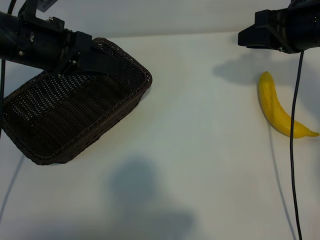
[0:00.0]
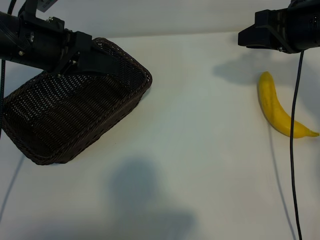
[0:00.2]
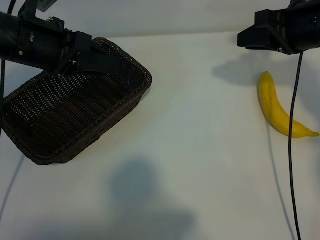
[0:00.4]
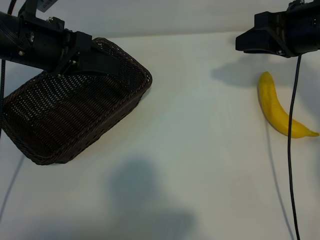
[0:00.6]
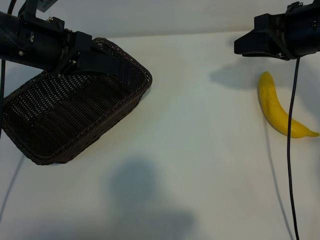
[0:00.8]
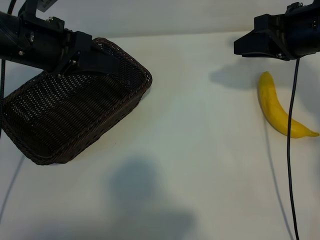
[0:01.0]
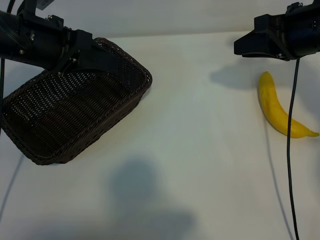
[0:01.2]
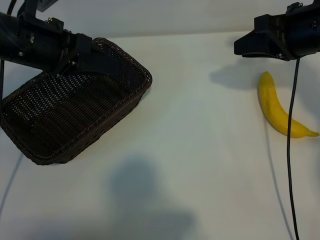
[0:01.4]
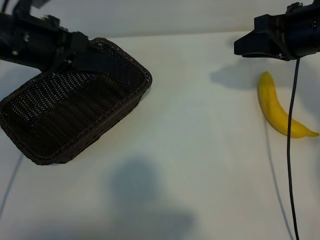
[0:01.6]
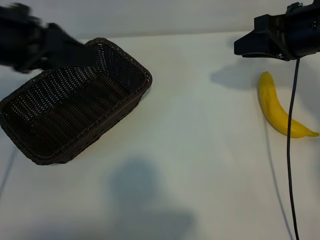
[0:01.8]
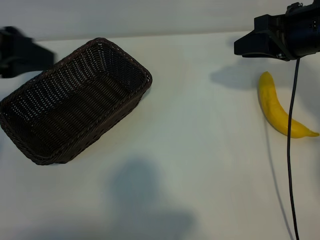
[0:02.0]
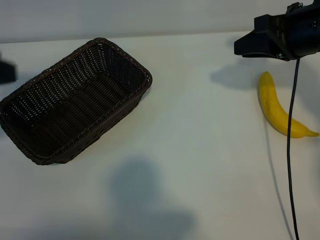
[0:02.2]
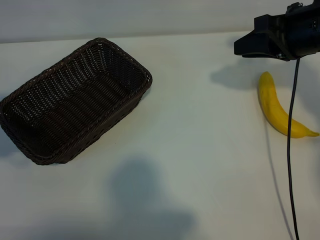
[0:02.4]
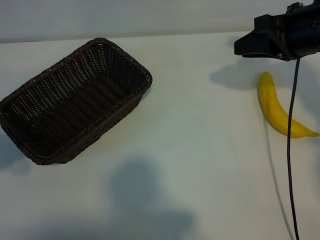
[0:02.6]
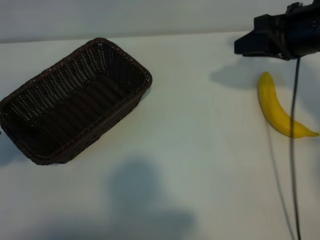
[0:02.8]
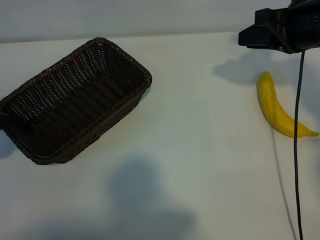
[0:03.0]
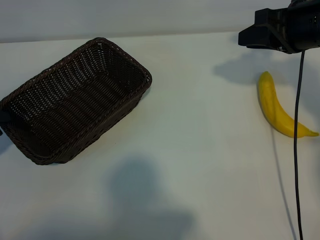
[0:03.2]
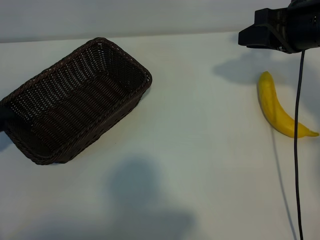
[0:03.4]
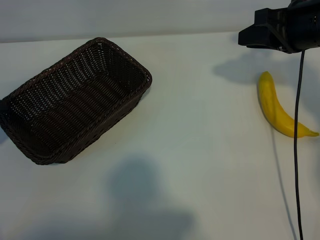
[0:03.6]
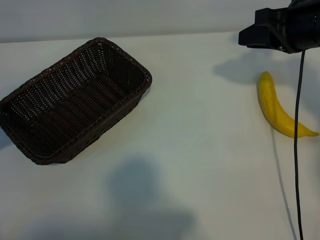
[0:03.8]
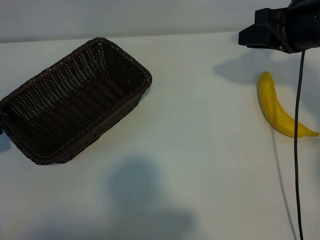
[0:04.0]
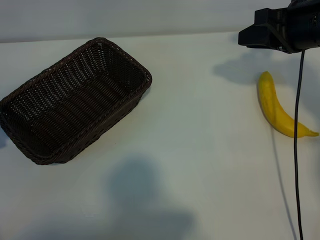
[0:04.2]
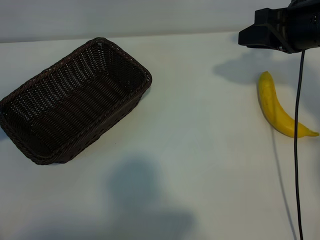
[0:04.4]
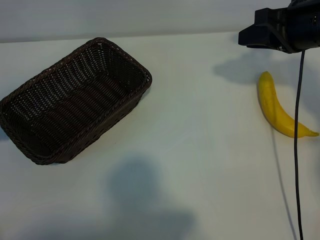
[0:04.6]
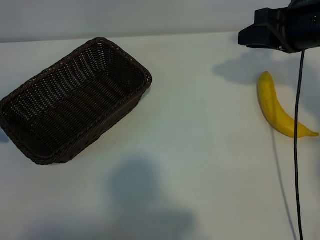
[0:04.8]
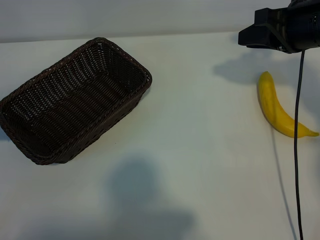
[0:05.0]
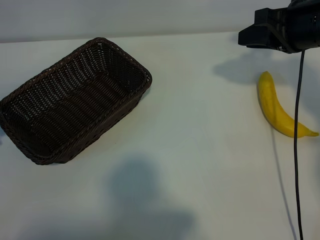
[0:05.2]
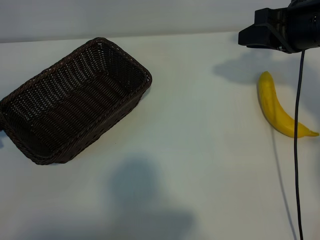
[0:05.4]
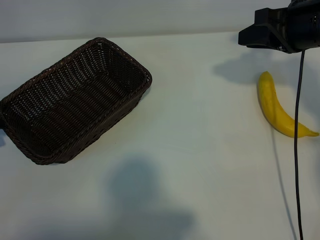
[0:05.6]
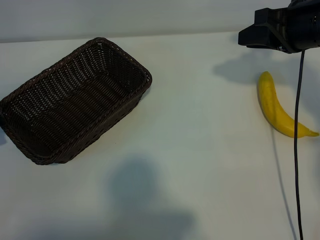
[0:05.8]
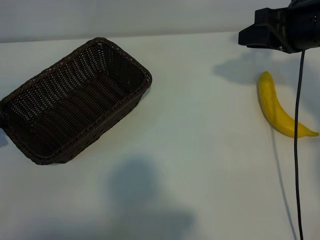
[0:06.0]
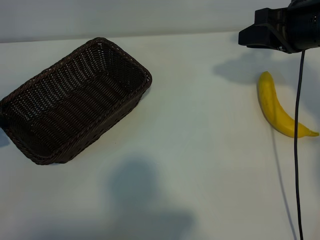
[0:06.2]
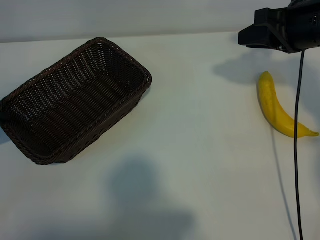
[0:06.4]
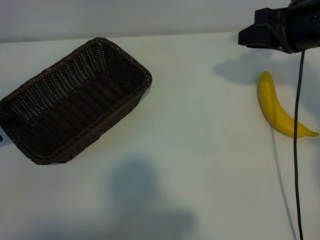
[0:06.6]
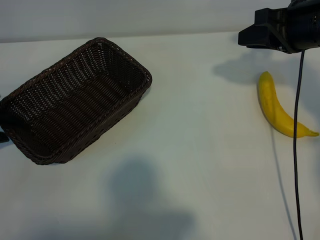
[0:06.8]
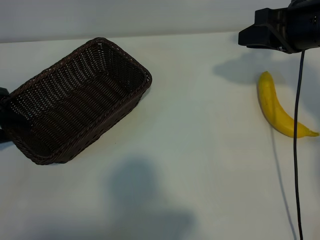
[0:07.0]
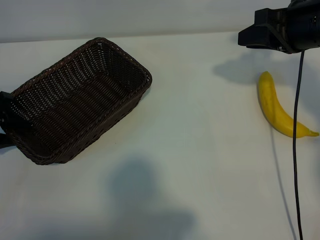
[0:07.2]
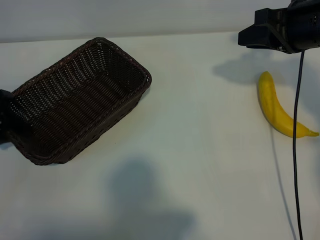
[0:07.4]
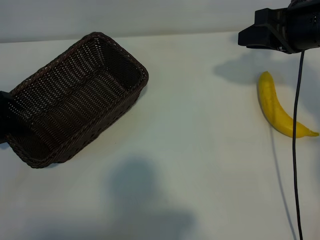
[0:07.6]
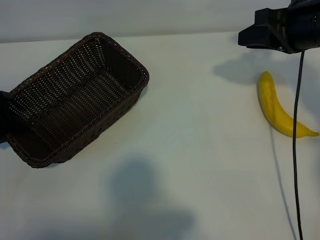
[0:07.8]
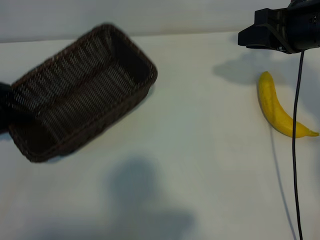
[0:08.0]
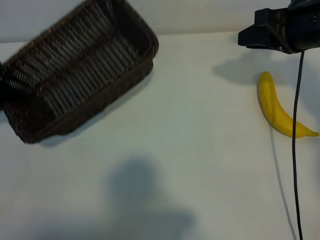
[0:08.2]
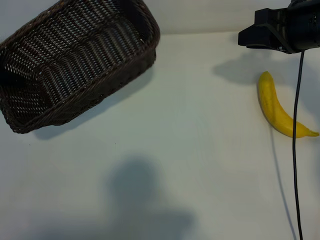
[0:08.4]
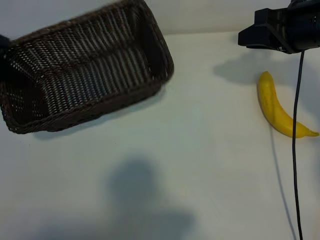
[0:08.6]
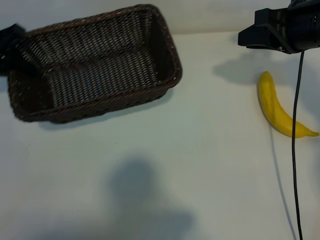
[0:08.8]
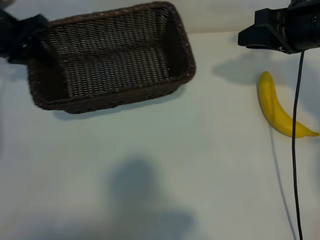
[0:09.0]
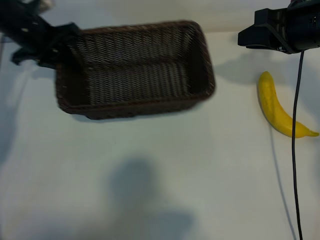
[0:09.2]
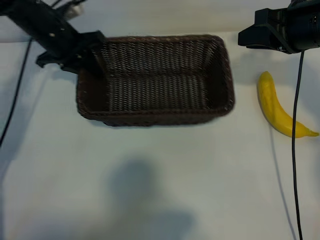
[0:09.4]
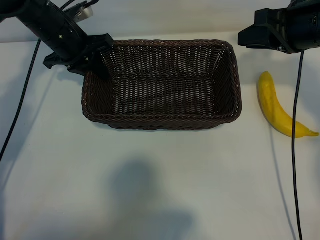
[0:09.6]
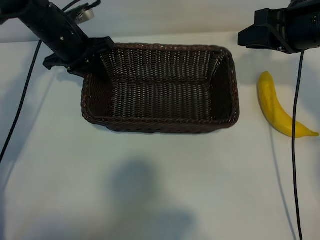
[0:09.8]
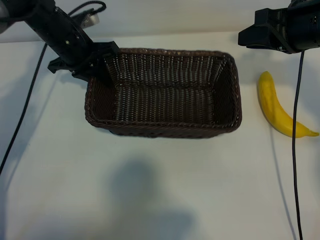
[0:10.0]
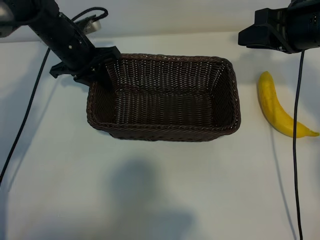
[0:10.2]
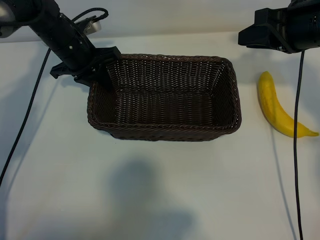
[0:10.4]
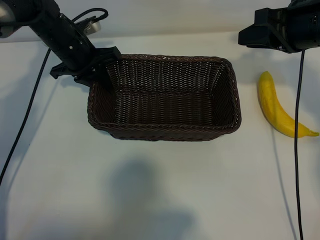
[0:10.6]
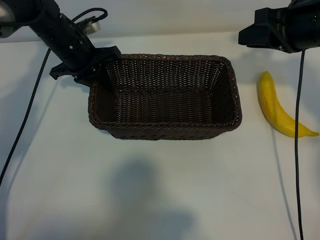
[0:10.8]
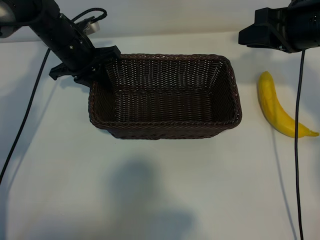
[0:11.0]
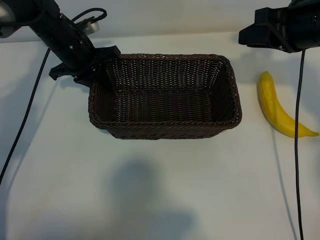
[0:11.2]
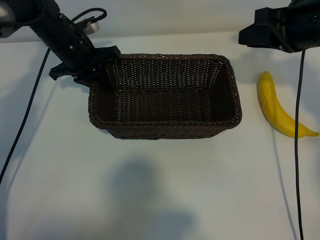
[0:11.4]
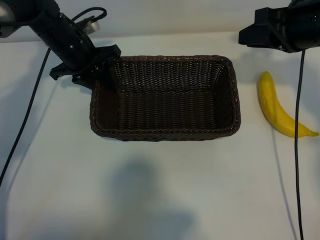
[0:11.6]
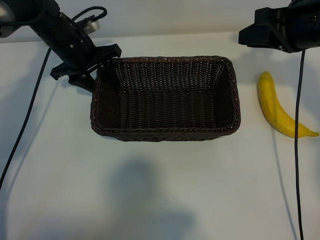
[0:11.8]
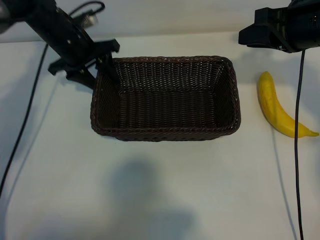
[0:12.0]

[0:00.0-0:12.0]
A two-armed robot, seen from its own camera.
Task of the whole recording: pick up the banana and put it into the basket.
Step, 0:00.0 to 0:07.8: Grasp the basket with the left gripper.
Step, 0:08.0 to 0:12.0: Place the basket in the center of the table with the left gripper.

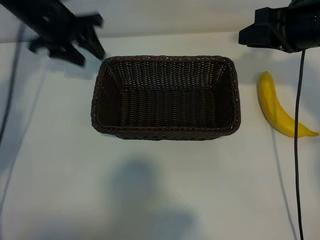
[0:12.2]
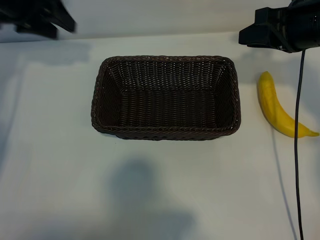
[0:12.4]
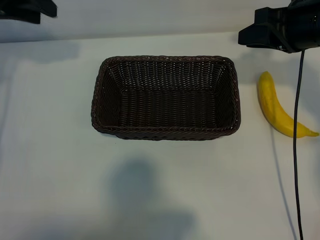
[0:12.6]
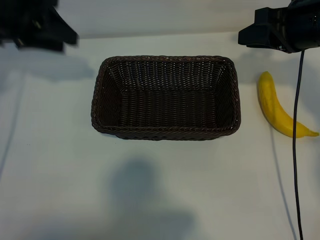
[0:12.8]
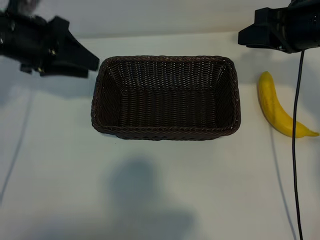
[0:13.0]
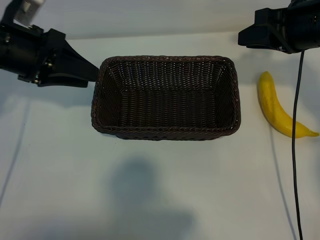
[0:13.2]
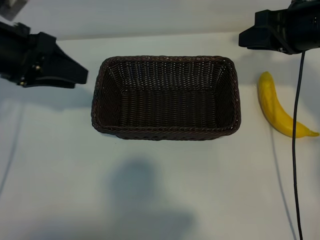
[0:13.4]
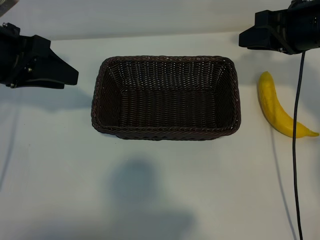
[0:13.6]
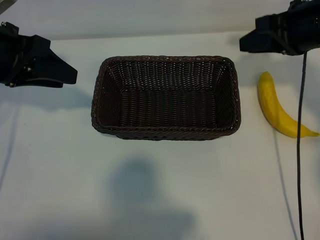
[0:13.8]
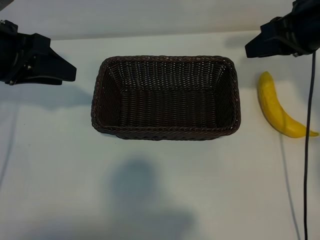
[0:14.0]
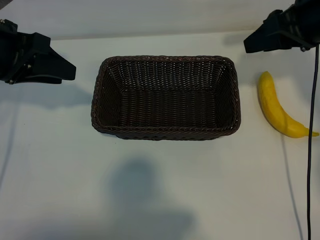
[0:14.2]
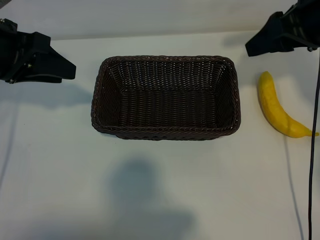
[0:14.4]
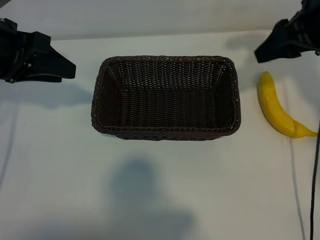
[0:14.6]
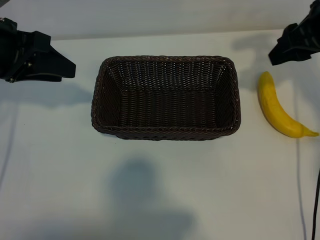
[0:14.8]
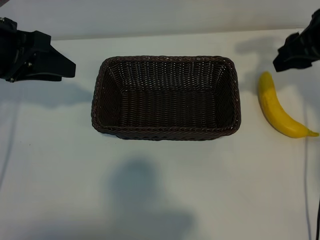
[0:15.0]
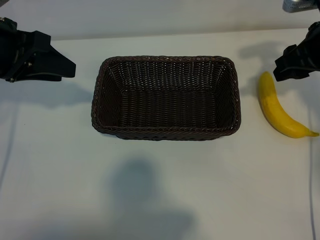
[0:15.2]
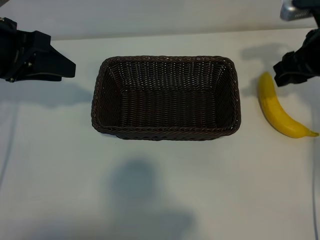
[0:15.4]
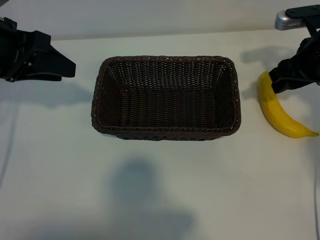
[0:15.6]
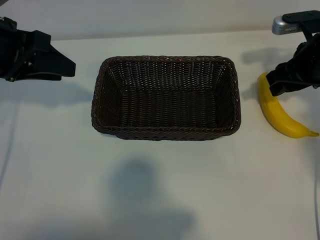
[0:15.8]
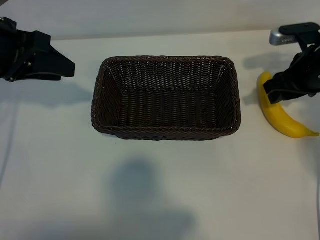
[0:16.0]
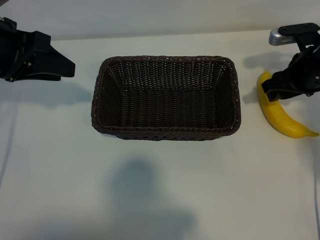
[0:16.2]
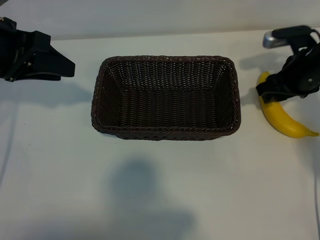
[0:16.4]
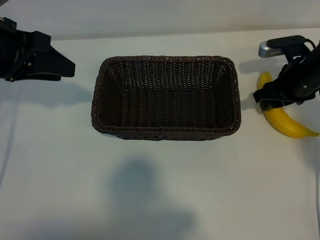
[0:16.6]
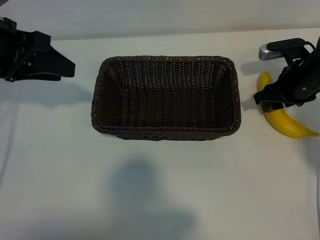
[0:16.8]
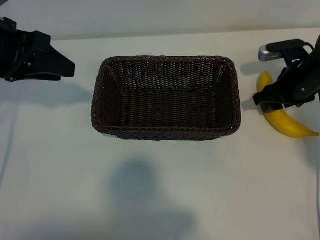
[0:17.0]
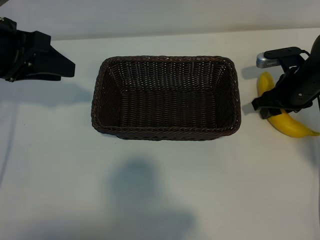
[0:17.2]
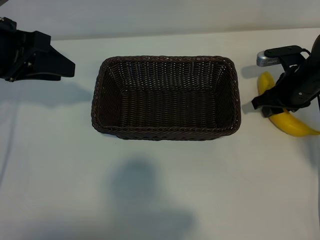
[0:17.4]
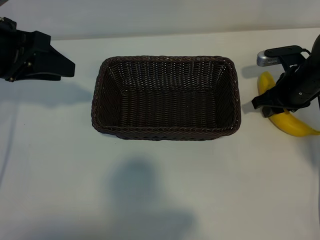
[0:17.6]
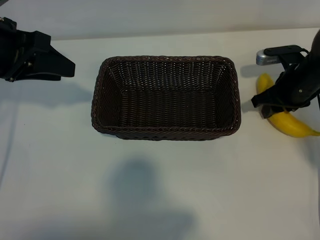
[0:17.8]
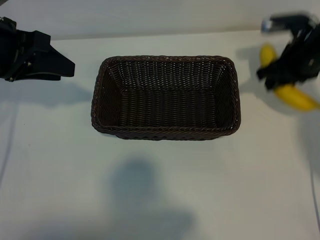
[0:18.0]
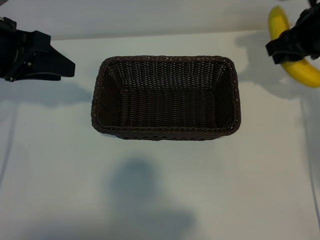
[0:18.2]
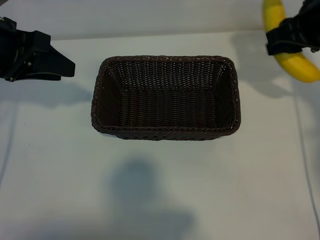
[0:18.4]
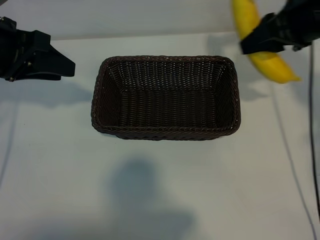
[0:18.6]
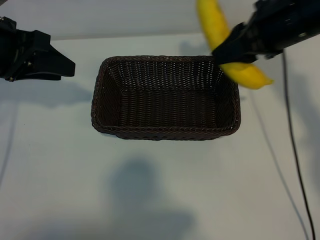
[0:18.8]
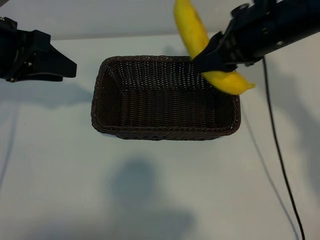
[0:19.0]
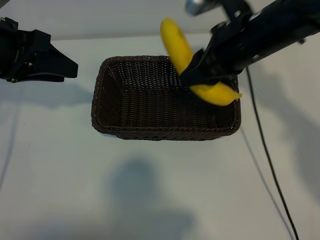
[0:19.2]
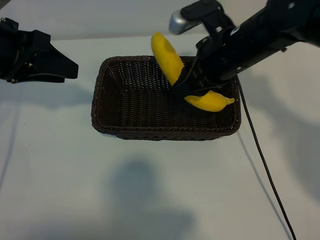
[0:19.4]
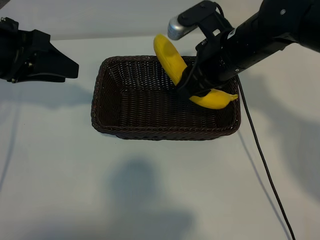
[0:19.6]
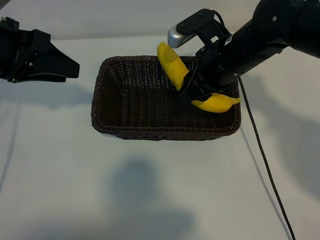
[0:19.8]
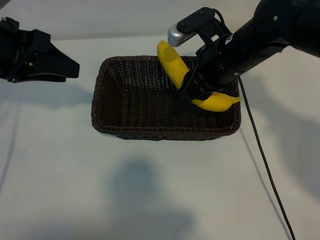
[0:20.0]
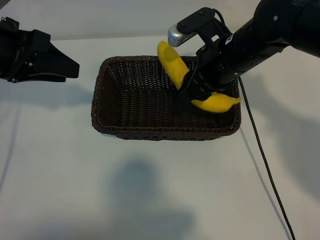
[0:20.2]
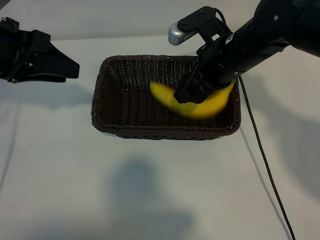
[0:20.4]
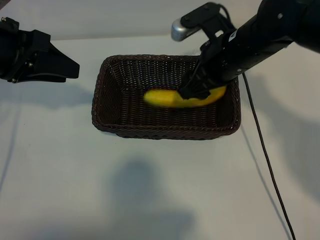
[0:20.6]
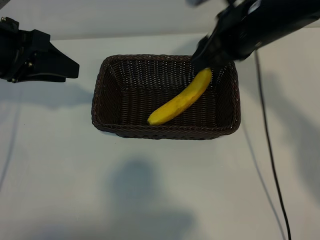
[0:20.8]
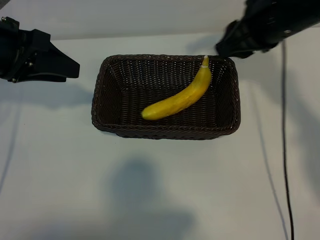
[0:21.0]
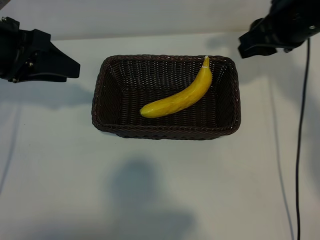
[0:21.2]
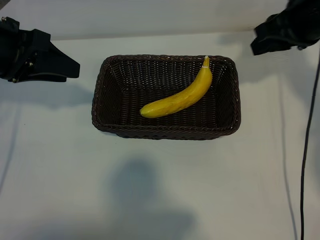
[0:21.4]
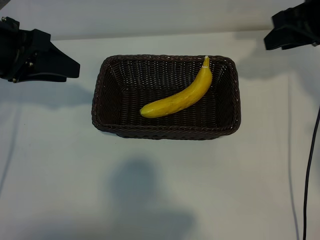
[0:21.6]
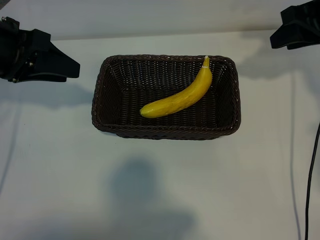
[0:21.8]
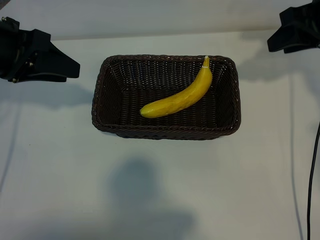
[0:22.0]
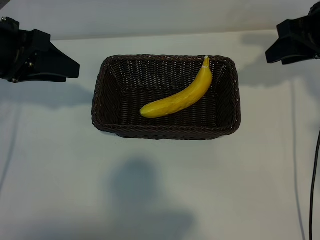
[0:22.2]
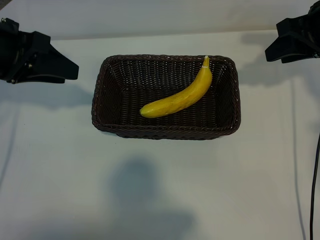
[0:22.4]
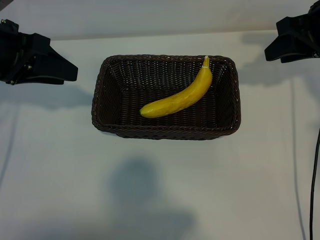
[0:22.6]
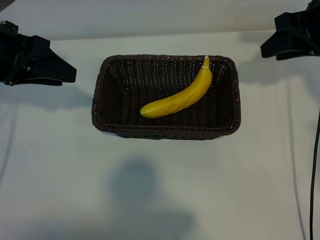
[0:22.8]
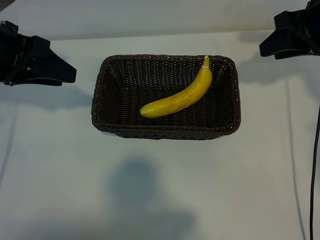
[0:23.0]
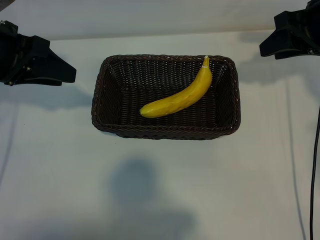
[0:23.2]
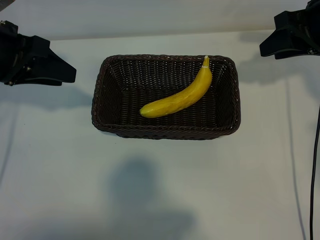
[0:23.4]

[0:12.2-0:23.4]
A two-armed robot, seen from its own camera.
Task of the whole recording: pick up the banana and put it into the basket.
Step, 0:12.2 to 0:17.6: Grasp the banana with right gripper.
Step, 0:18.0 to 0:20.6: Place the banana in the basket with right gripper.
